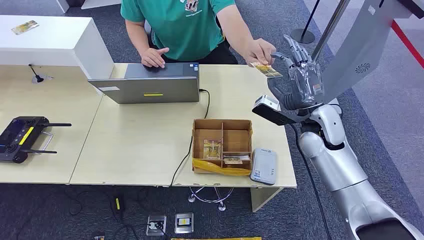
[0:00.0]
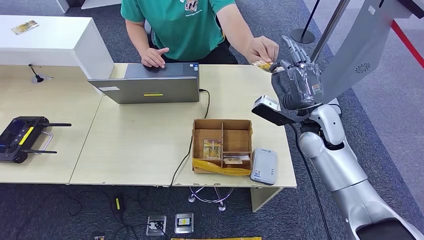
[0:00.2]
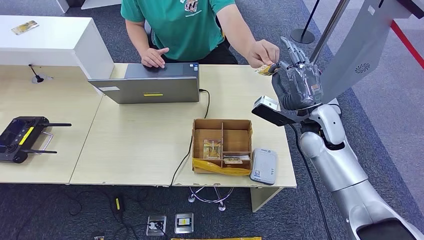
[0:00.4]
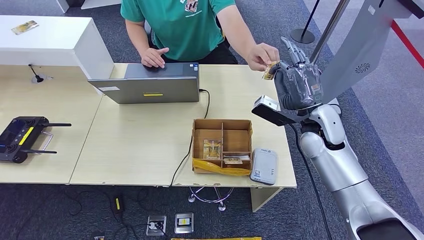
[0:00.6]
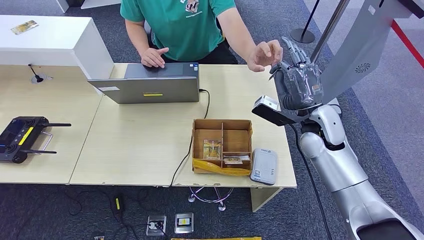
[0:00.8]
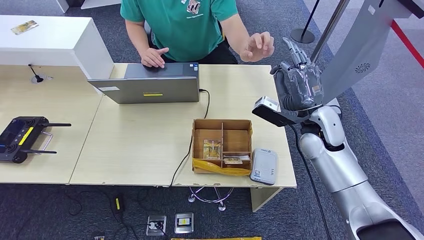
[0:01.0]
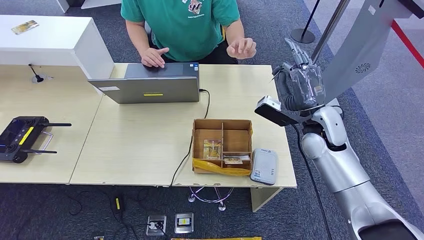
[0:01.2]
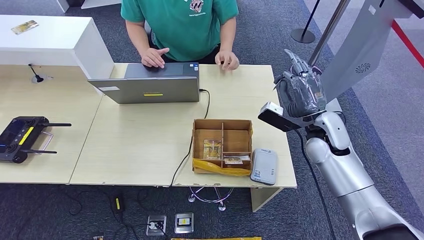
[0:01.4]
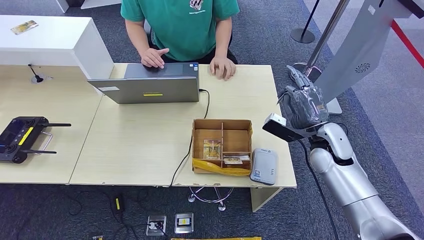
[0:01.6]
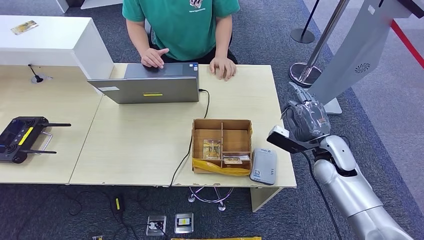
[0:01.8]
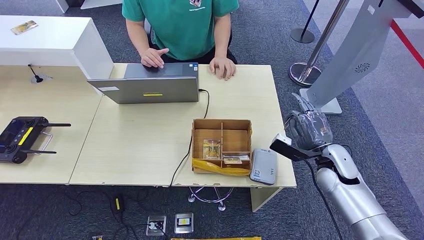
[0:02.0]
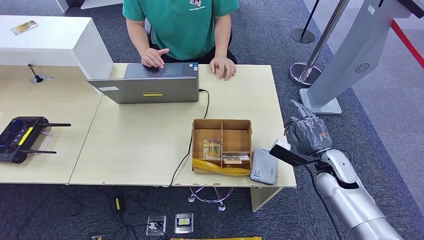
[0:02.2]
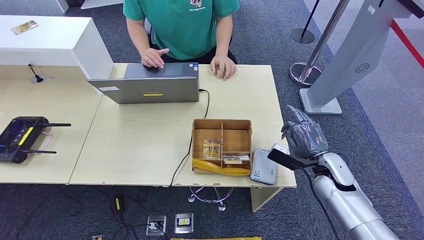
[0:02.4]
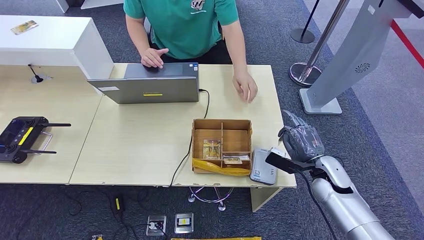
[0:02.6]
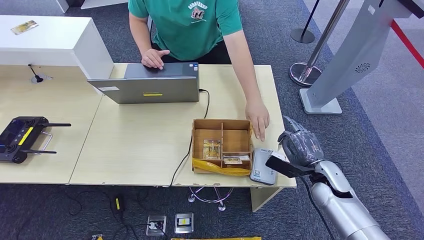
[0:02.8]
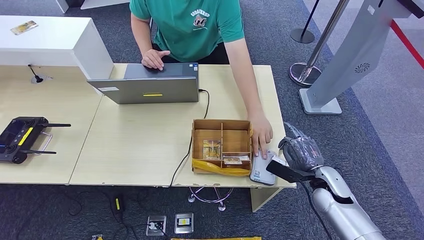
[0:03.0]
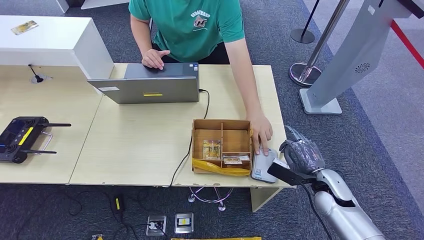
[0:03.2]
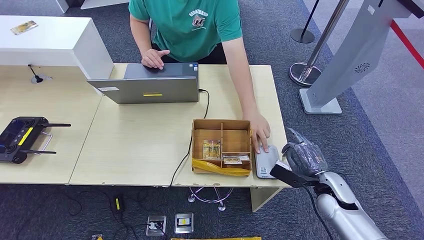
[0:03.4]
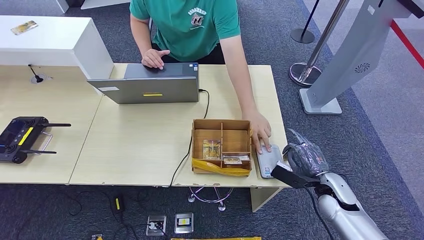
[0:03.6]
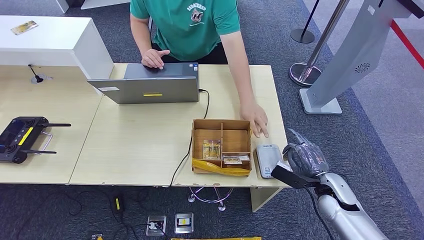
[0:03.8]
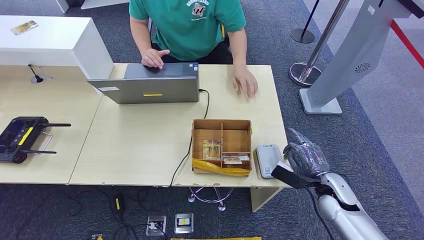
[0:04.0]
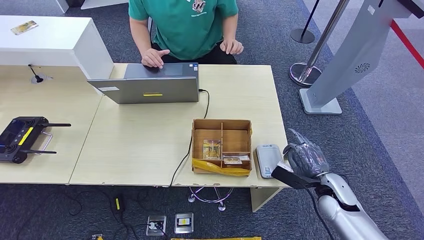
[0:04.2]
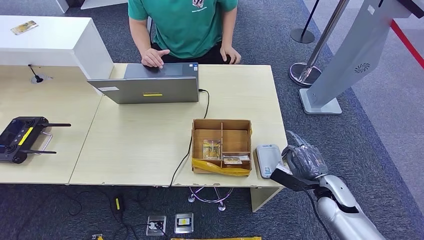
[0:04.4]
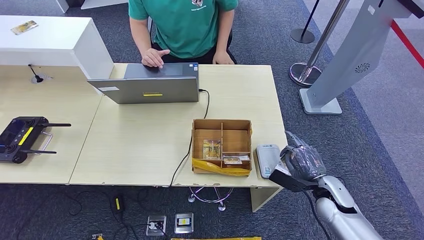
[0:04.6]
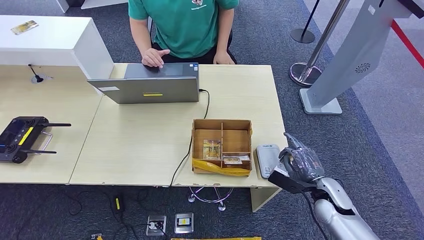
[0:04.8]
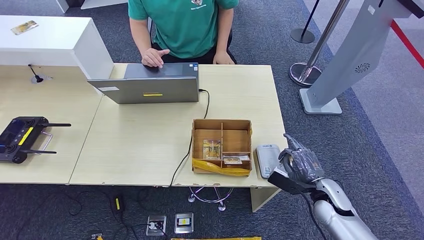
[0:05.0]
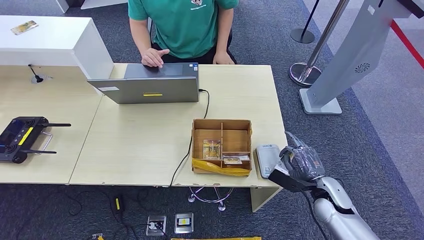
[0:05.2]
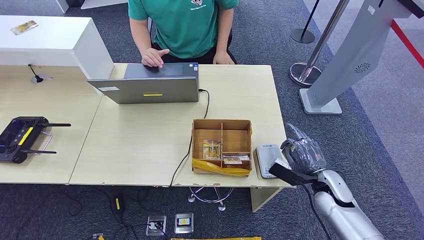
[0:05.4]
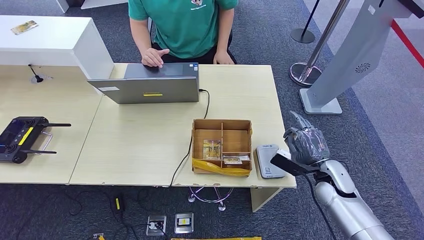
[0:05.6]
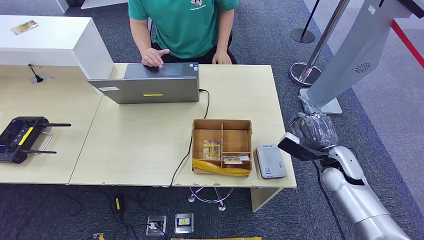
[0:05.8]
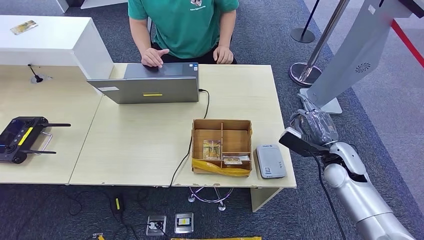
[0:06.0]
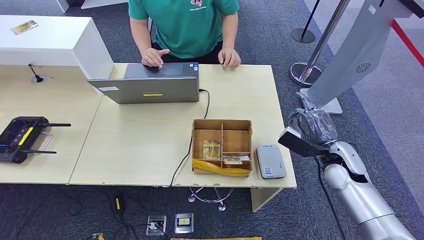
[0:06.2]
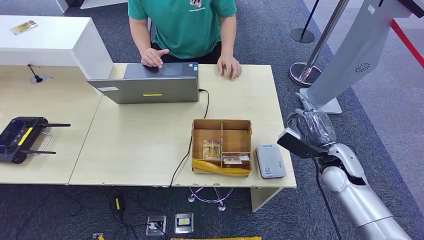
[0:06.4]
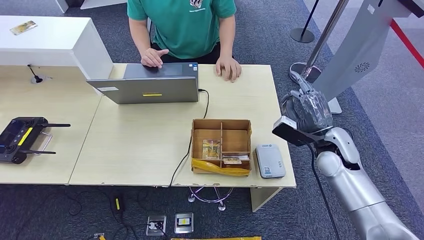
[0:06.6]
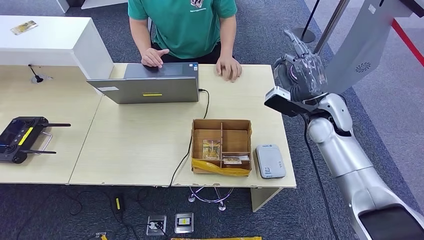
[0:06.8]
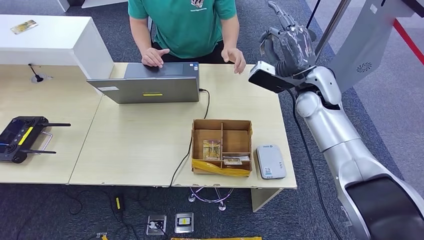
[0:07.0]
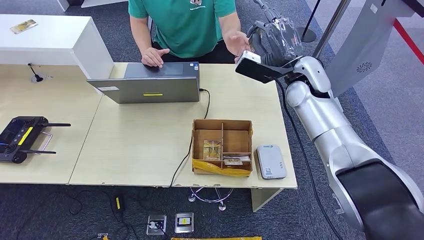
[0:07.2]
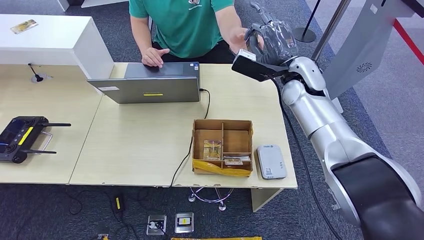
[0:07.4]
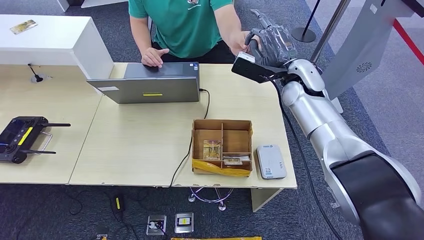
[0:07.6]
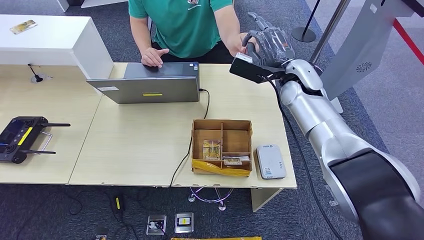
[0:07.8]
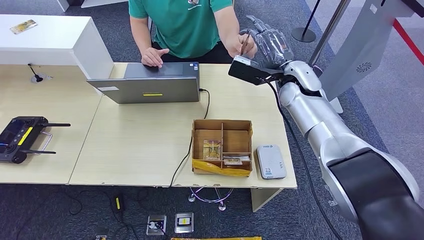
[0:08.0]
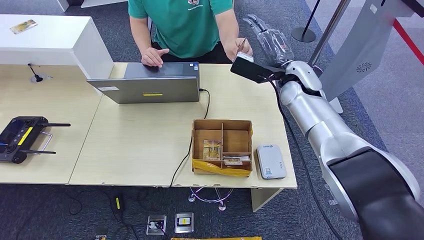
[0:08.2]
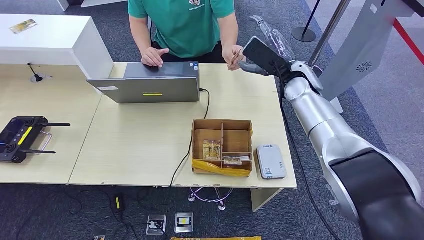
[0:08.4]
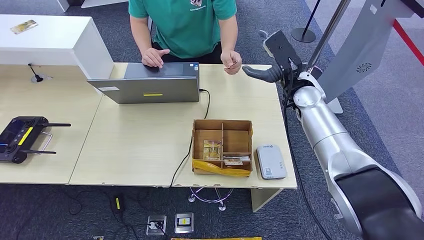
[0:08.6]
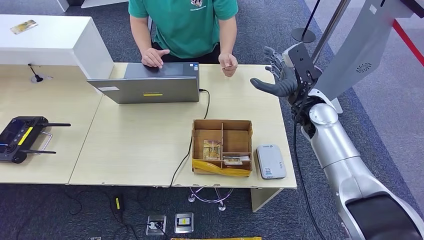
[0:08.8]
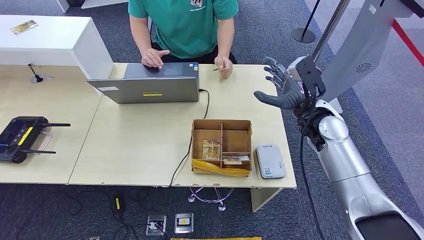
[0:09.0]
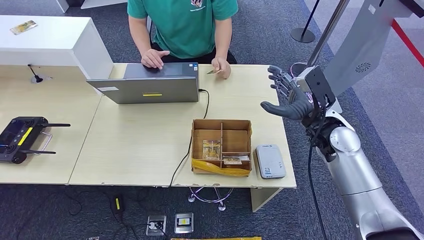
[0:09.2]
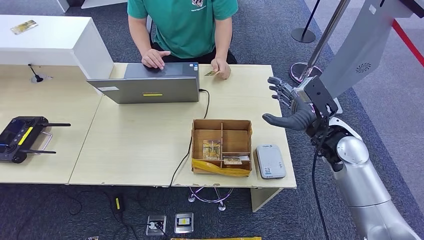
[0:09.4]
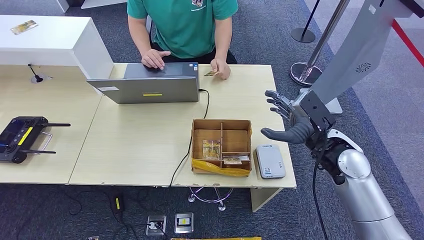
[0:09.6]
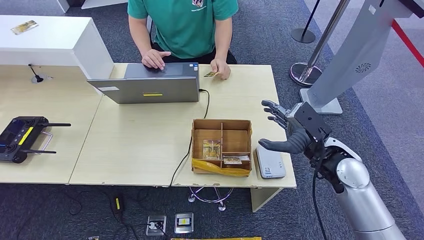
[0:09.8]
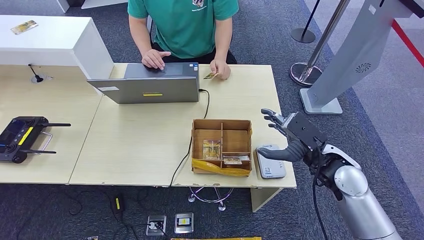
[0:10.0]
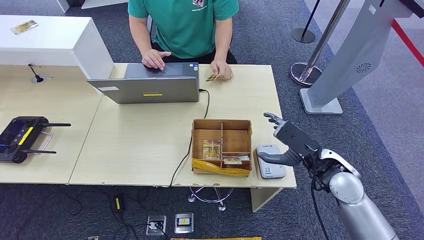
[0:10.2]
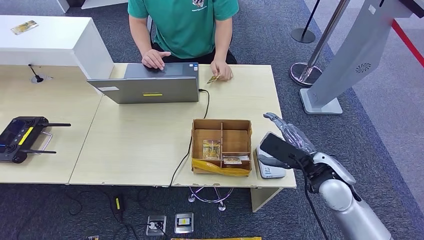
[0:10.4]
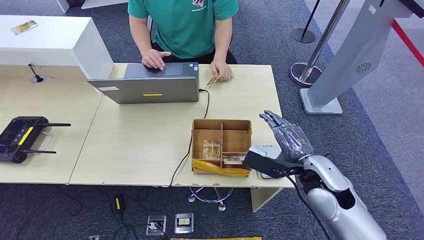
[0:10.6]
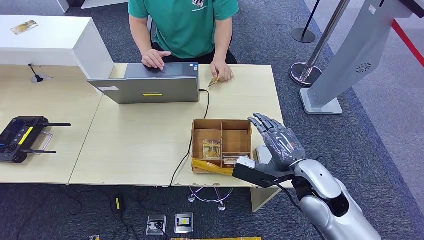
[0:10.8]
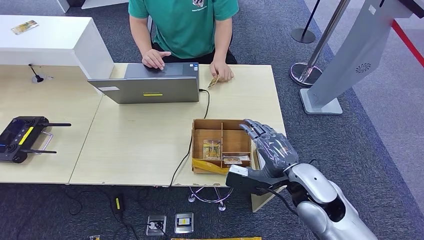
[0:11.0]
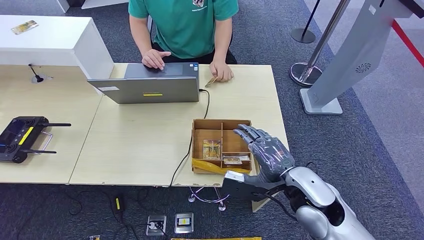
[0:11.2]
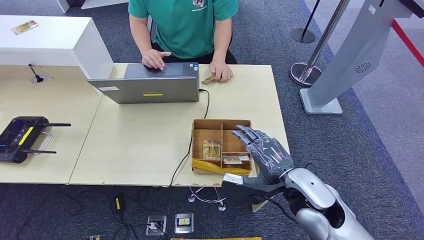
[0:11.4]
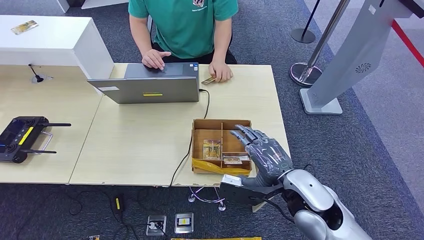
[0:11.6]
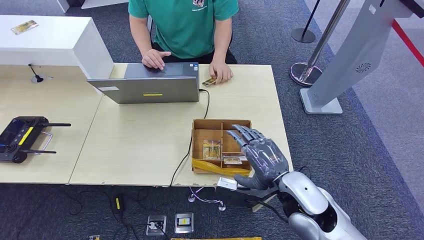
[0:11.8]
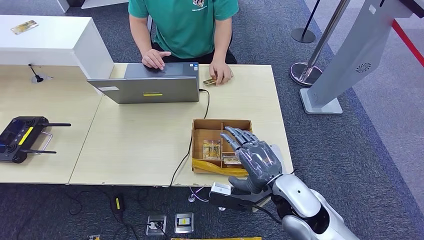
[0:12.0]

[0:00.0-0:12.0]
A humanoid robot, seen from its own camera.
Step, 0:00.0 to 0:01.6: Take the ID card from the person's hand.
Step, 0:02.0 to 0:05.4: Place the ID card on the card reader.
Step, 0:05.6 to 0:08.2: Hand the ID card to the person.
0:01.6 to 0:03.0: The right hand is displaced forward, upward and to the left by some 30 cm.
0:03.0 to 0:04.4: The hands move only a little.
0:04.4 to 0:06.0: The right hand moves upward and forward, roughly 10 cm.
0:06.0 to 0:07.6: The right hand is displaced upward, forward and to the left by approximately 25 cm.
0:07.6 to 0:09.0: The right hand is displaced backward and downward by some 10 cm.
0:09.0 to 0:10.4: The right hand moves backward and downward, some 15 cm.
0:10.4 to 0:12.0: The right hand shifts some 10 cm to the left.

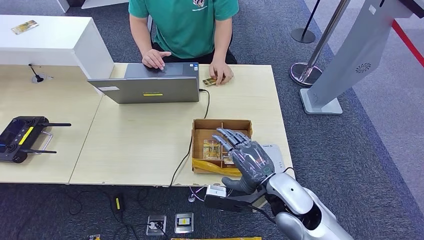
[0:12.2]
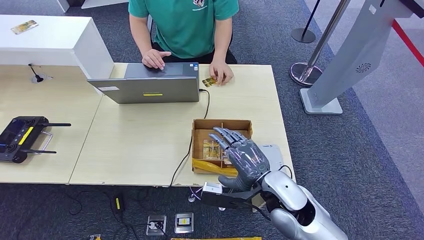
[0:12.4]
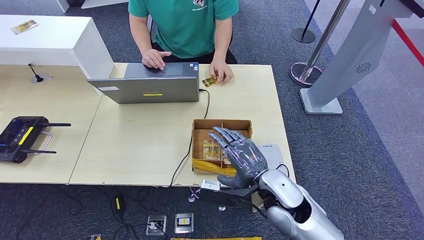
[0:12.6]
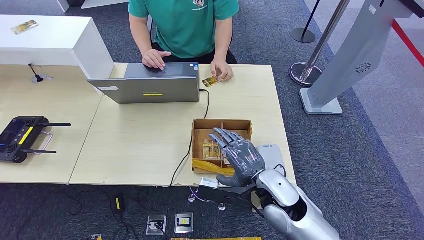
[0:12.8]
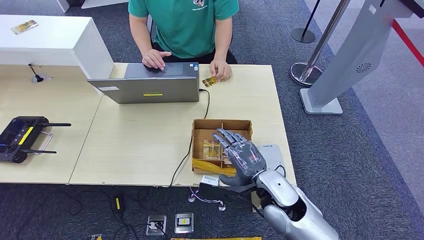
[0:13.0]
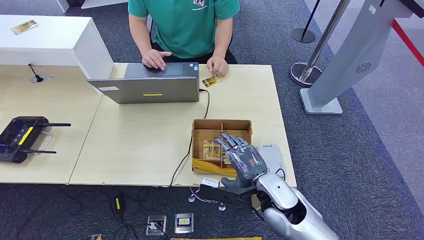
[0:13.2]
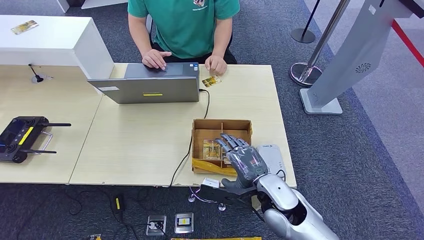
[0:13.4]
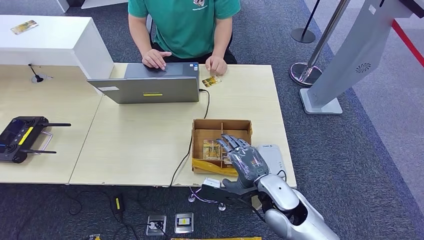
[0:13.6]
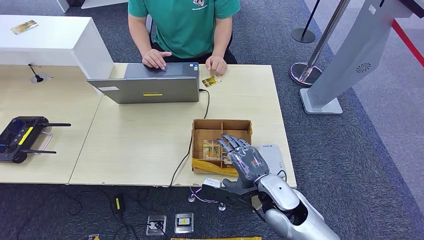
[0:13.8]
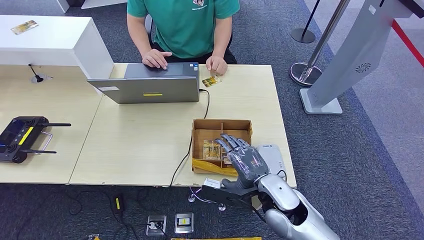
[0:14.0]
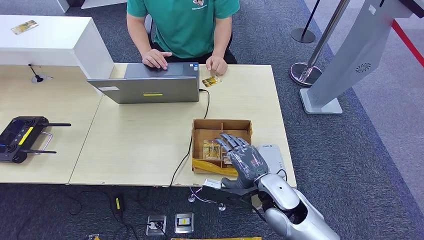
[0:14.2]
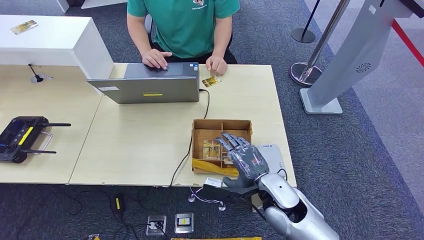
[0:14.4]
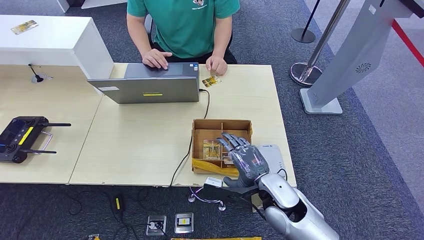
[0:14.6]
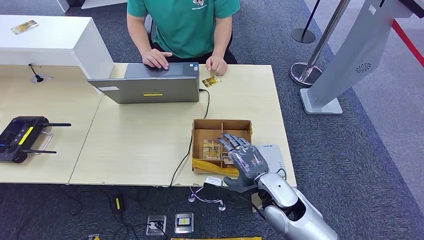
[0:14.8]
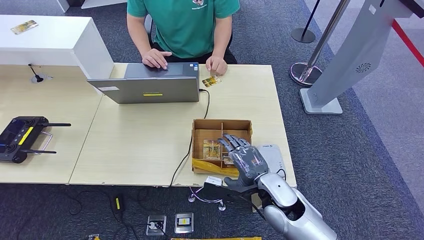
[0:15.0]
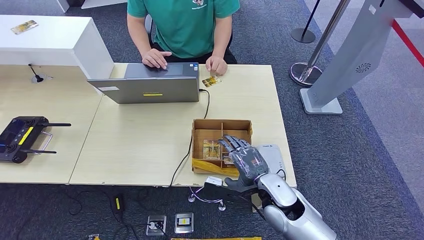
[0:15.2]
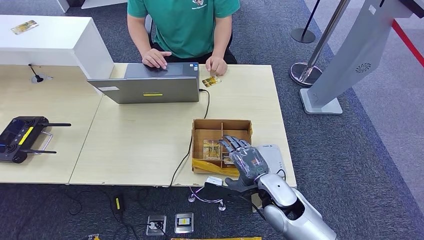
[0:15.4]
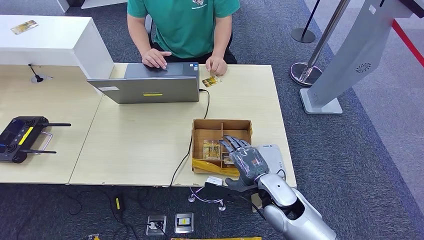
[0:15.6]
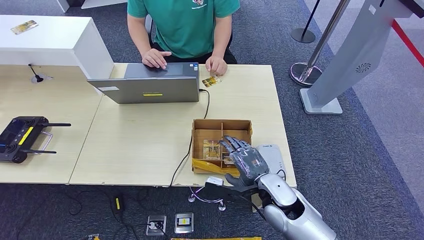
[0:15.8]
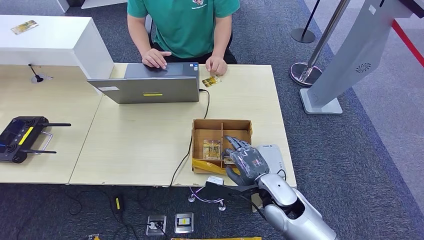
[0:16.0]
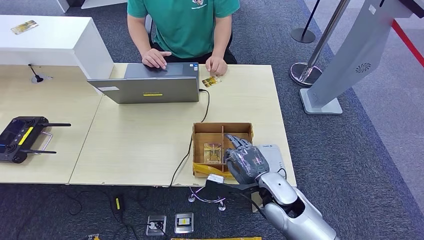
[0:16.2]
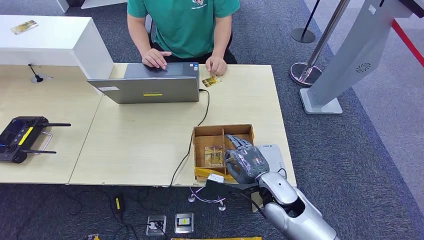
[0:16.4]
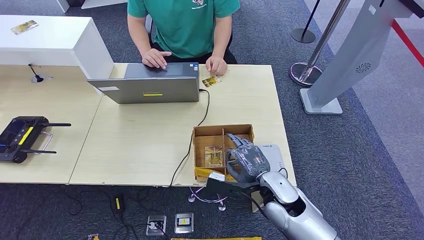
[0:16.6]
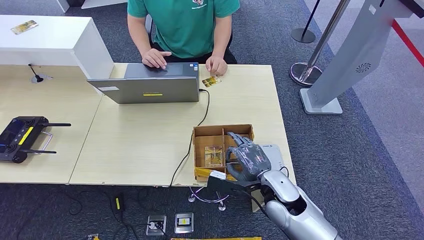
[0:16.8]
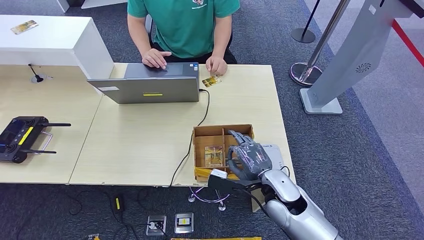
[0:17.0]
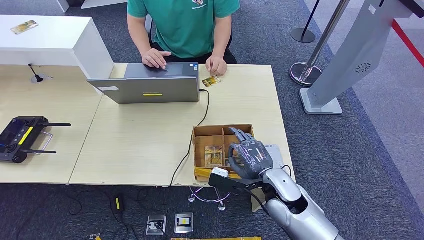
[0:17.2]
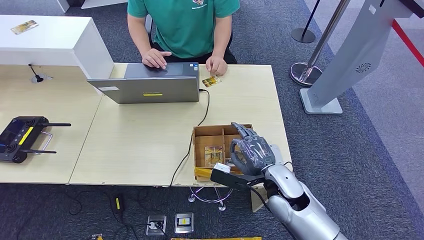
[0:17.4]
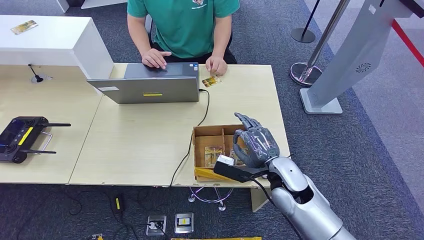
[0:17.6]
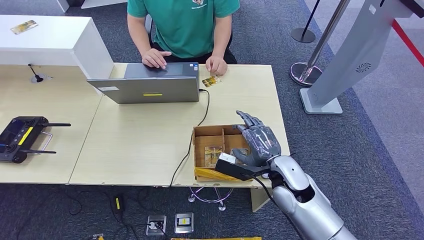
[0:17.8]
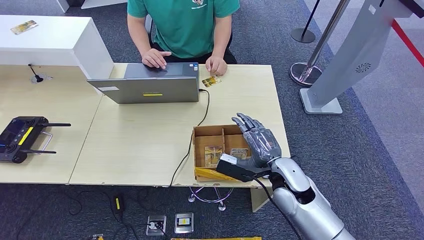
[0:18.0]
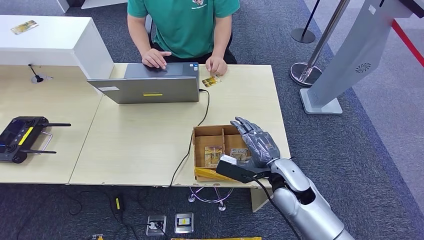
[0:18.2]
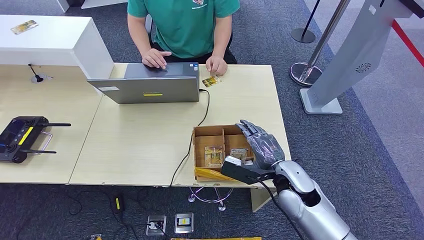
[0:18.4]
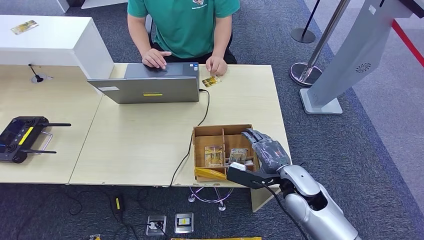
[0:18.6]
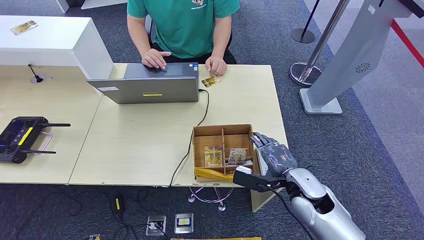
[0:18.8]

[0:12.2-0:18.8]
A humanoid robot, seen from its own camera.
Step, 0:12.2 to 0:17.0: Pick up the room key from the key card box.
0:12.2 to 0:13.8: The hands stay close to where they were, moving slightly.
0:13.8 to 0:17.2: The hands stay close to where they were, moving slightly.
0:17.2 to 0:18.8: The right hand shifts roughly 5 cm to the right.
